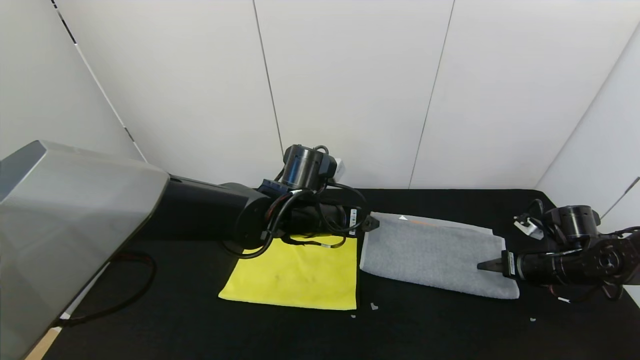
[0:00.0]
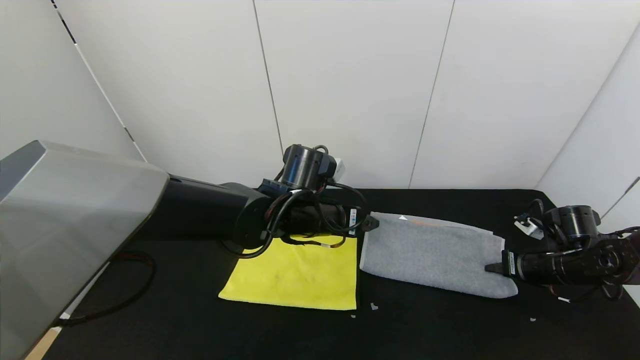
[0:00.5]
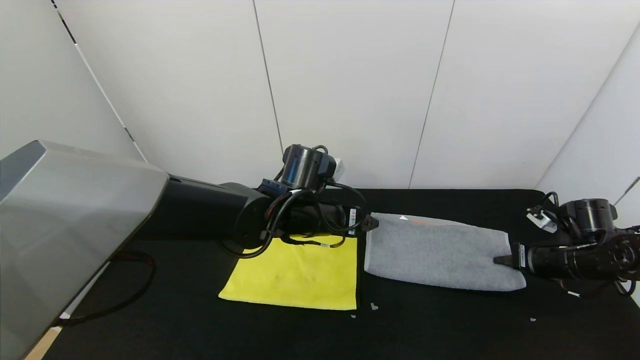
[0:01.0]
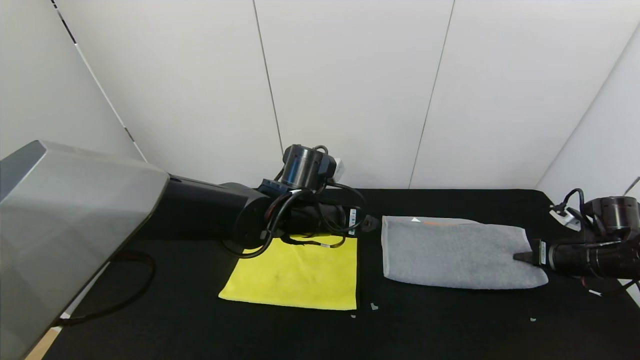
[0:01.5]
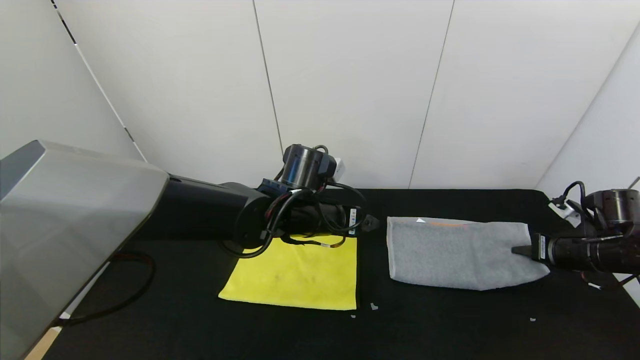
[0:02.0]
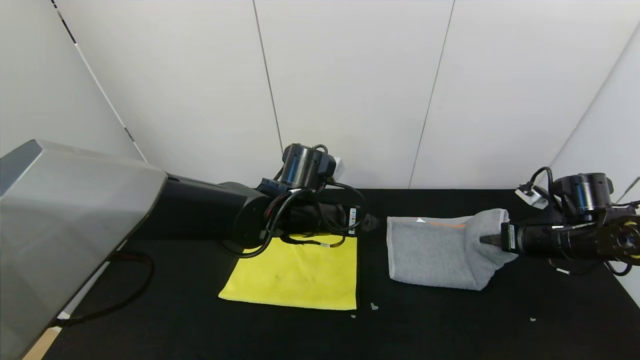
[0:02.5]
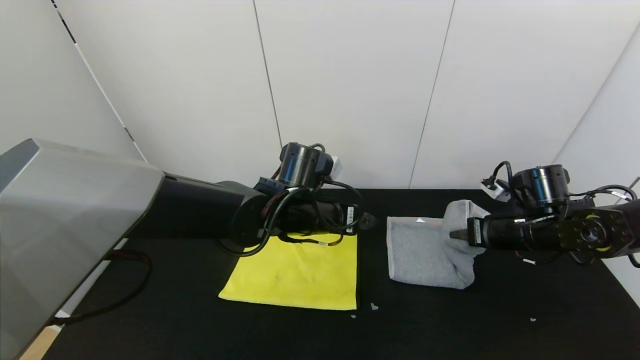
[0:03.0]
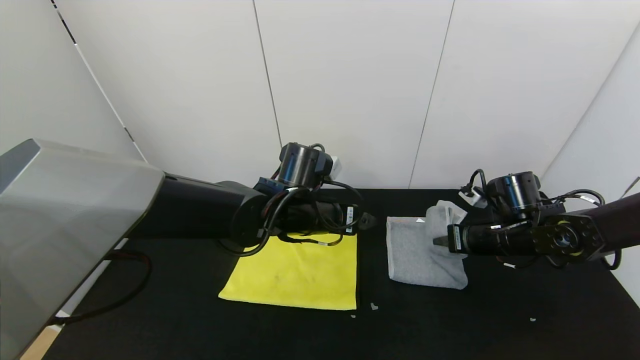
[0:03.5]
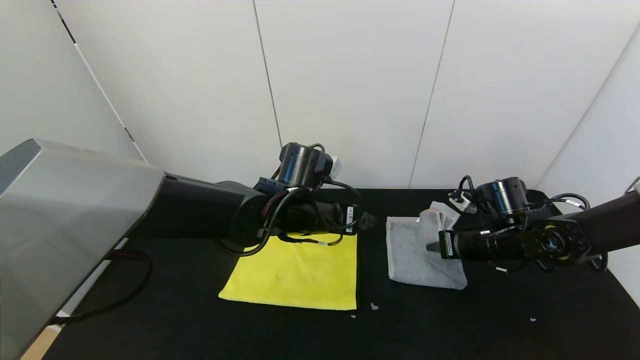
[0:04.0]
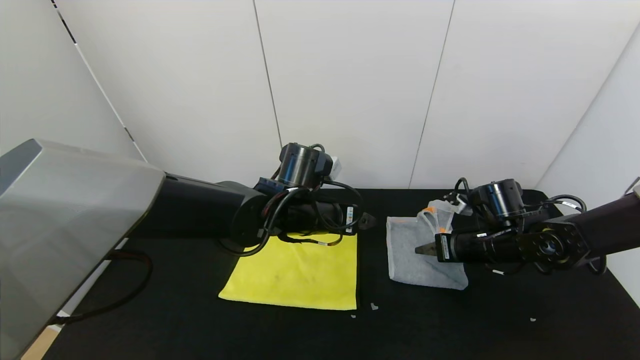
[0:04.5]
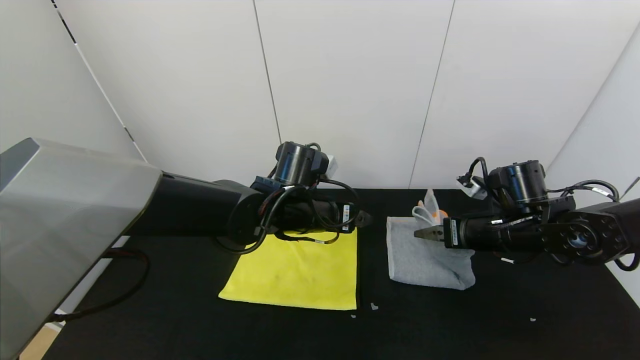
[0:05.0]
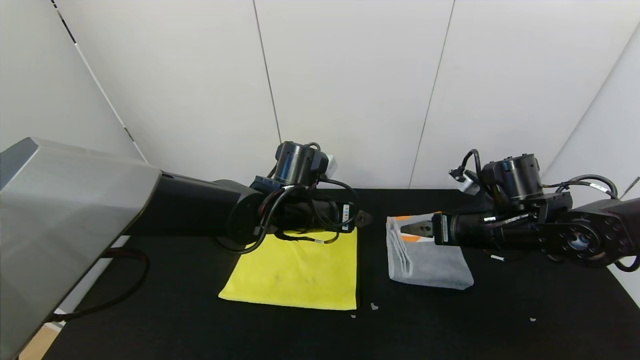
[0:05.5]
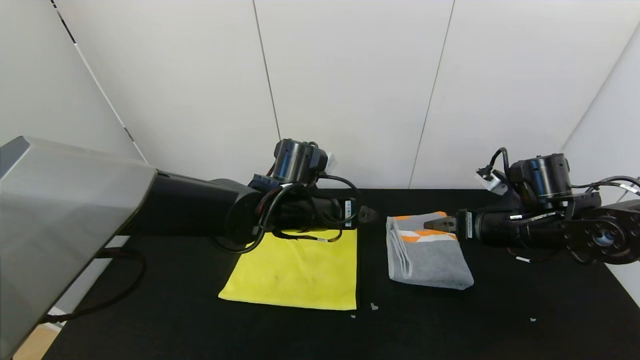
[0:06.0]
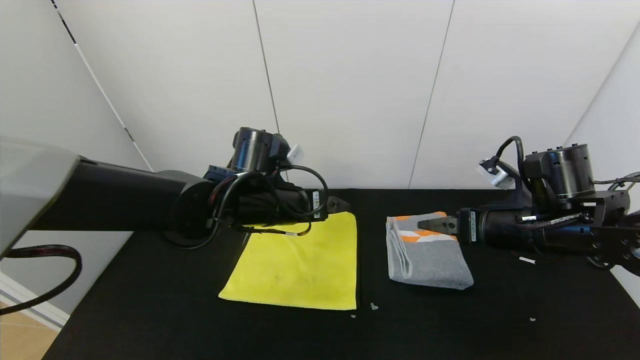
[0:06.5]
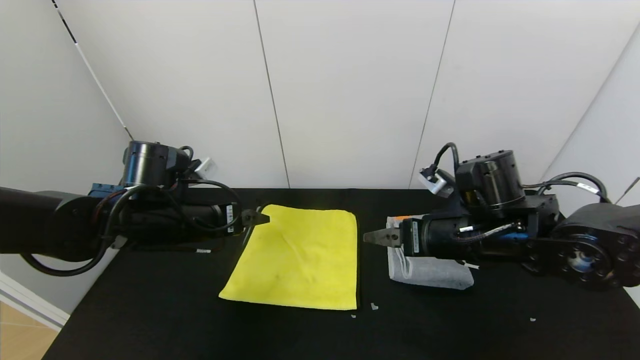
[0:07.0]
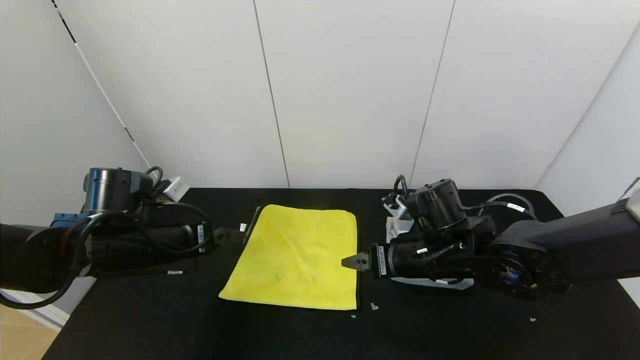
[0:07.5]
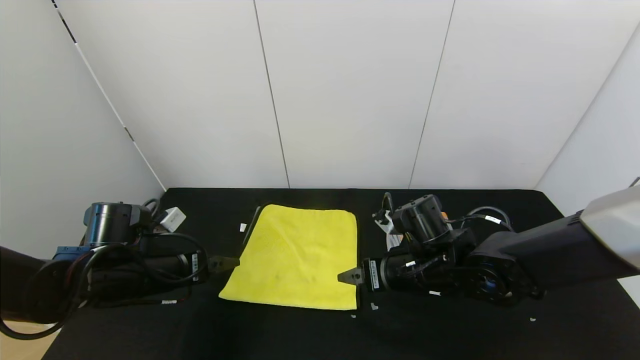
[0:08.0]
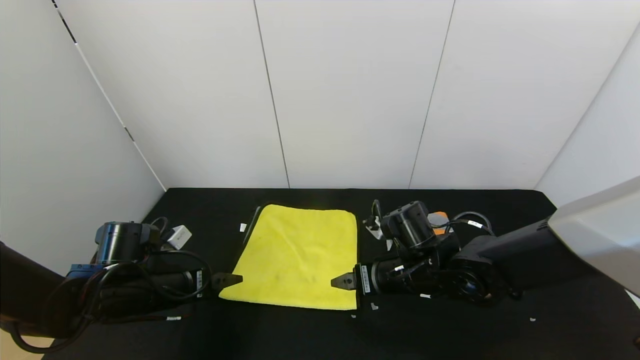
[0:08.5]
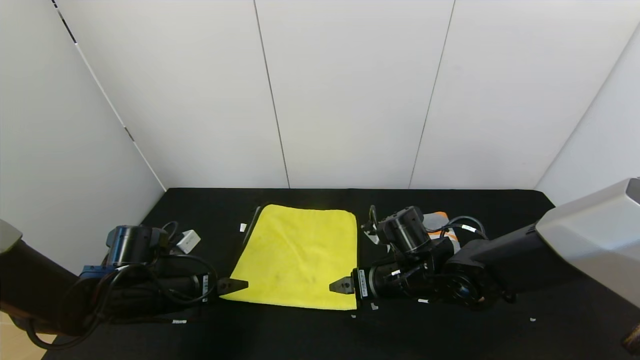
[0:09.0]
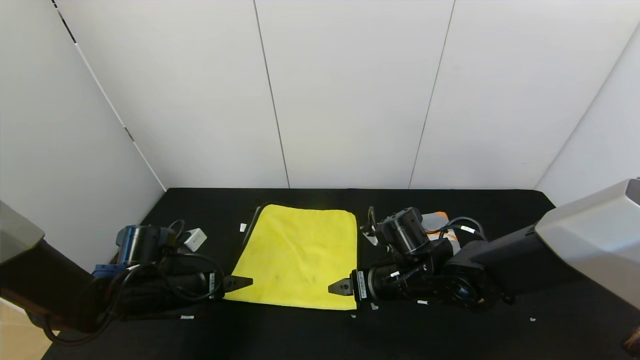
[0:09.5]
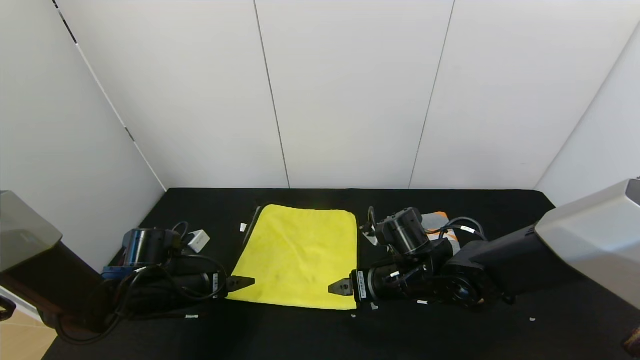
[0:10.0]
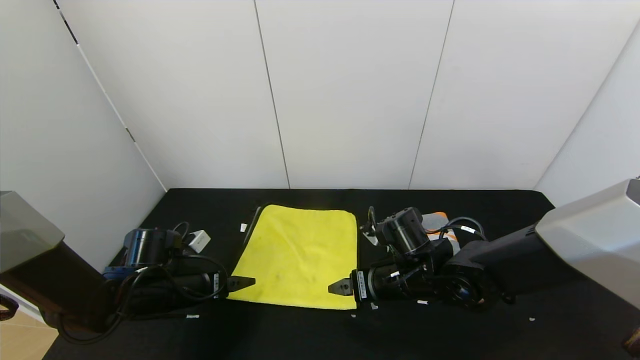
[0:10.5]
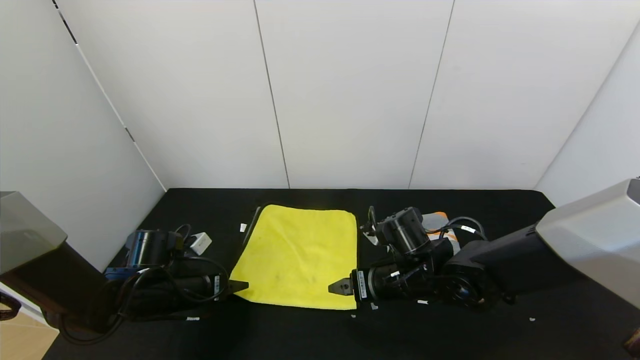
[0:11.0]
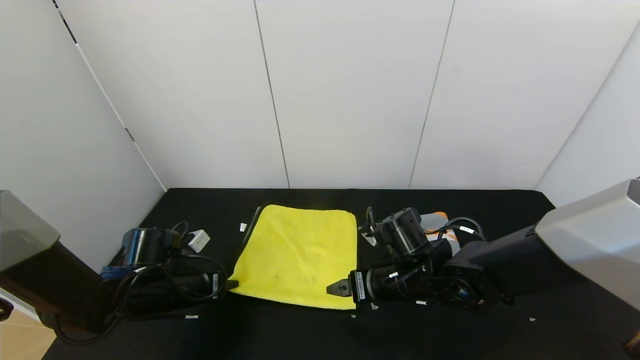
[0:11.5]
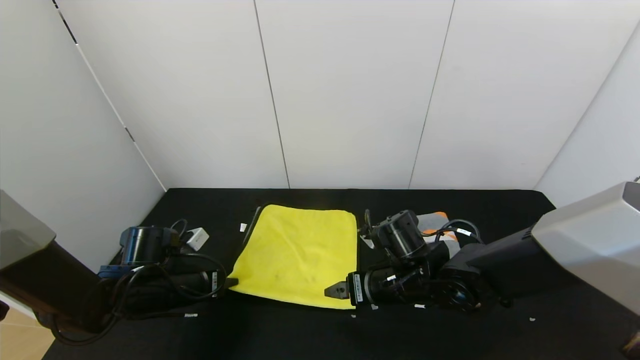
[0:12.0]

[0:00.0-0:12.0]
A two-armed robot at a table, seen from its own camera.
Task of the whole recording: Use the gripper to fold the yellow towel and grey towel in half twice,then put the yellow towel on the grey towel.
Step, 0:00.0 to 0:05.5: Fold the gray towel from right to left with right gripper.
0:00.0 to 0:02.0: The right gripper shifts by roughly 5 cm, and closes its fingers.
0:02.0 to 0:04.0: The right gripper shifts about 15 cm to the left.
0:04.0 to 0:06.0: The right gripper shifts roughly 5 cm upward, and opens its fingers.
0:06.0 to 0:08.0: The left gripper travels to the left by roughly 25 cm; the right gripper goes some 15 cm to the left.
0:08.0 to 0:10.0: The left gripper heads downward, covering roughly 5 cm.
0:10.0 to 0:12.0: The left gripper closes its fingers.

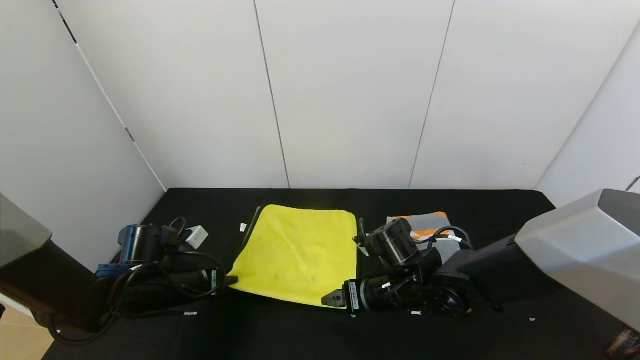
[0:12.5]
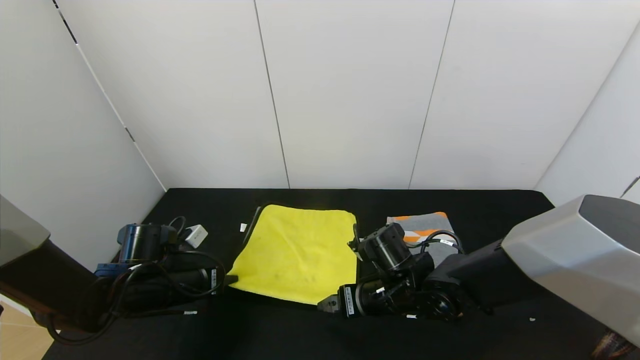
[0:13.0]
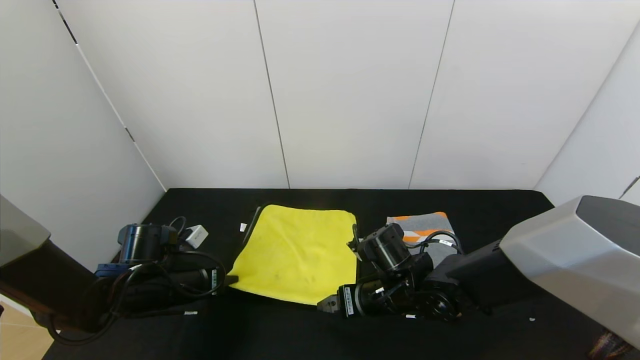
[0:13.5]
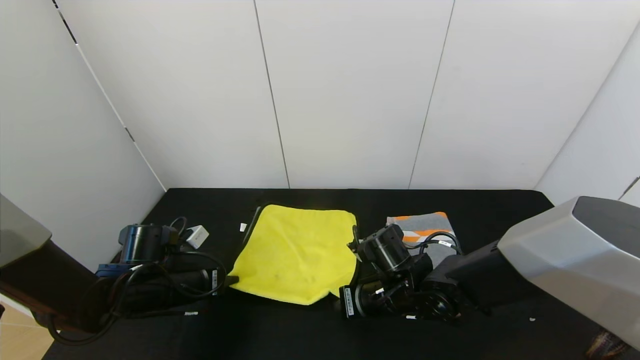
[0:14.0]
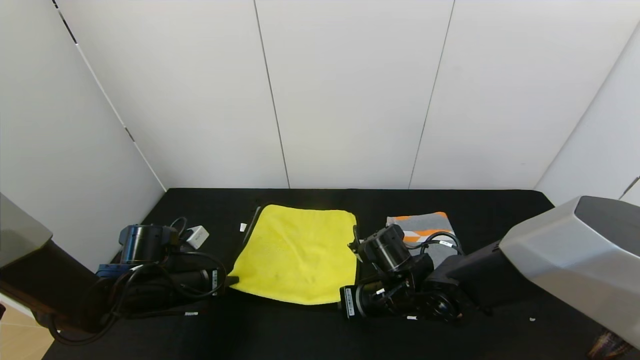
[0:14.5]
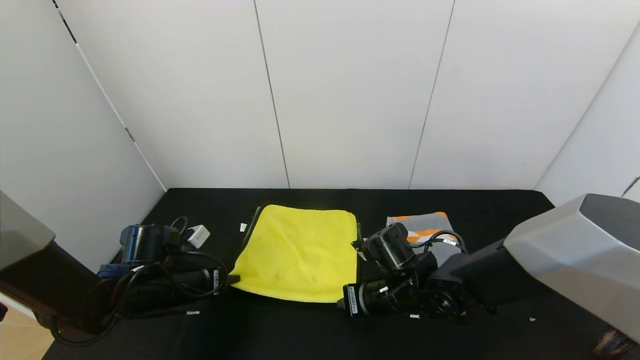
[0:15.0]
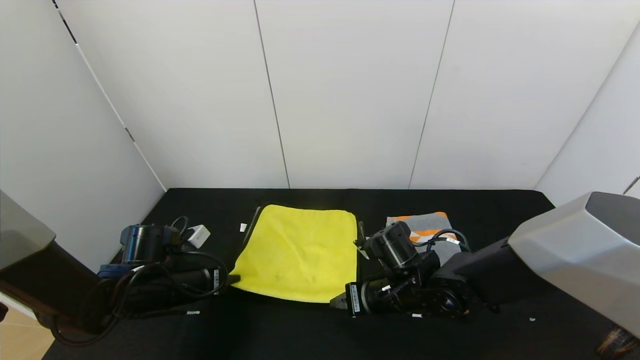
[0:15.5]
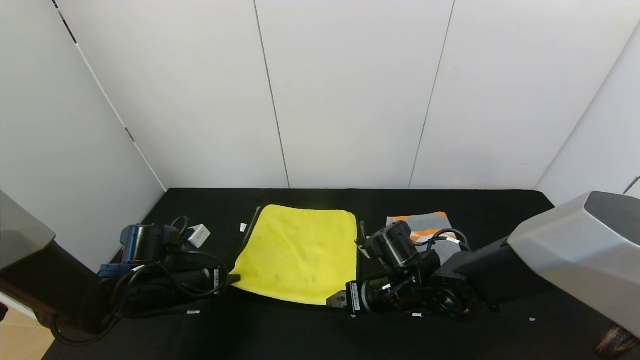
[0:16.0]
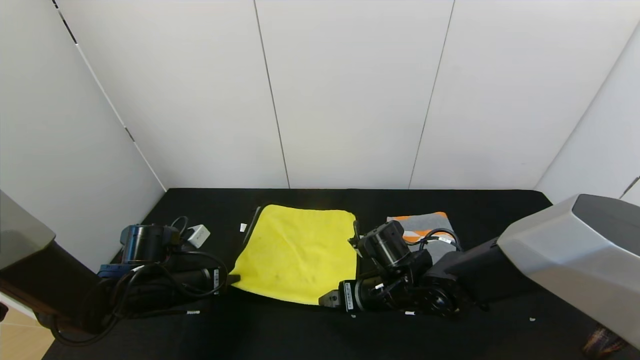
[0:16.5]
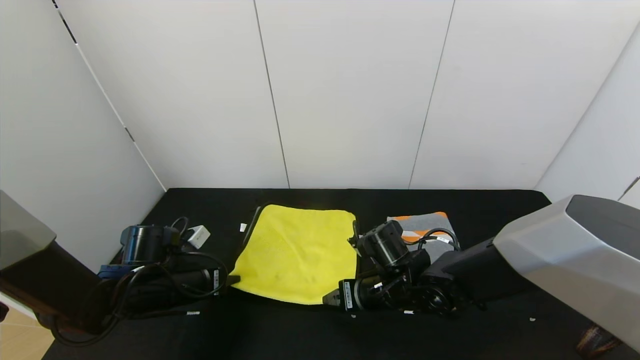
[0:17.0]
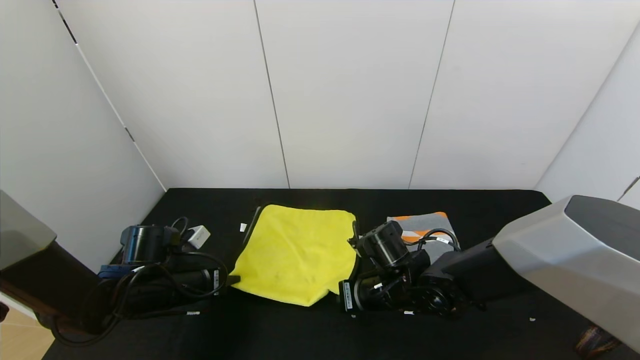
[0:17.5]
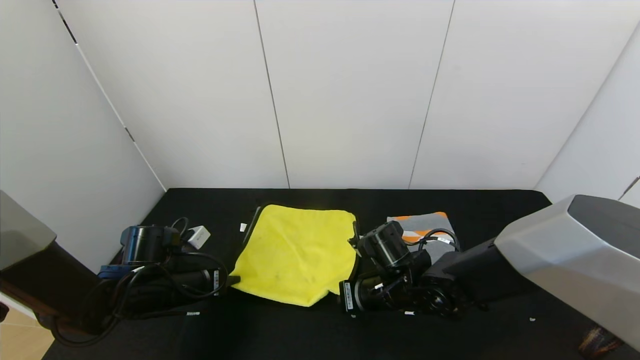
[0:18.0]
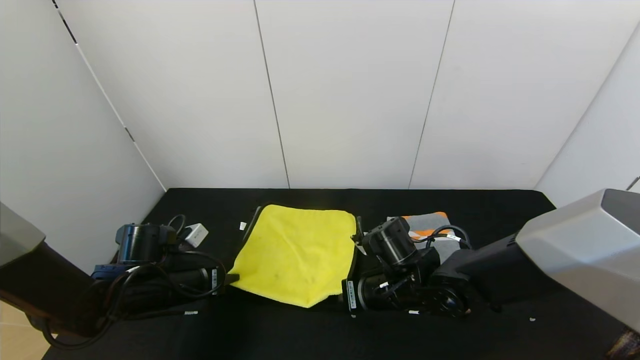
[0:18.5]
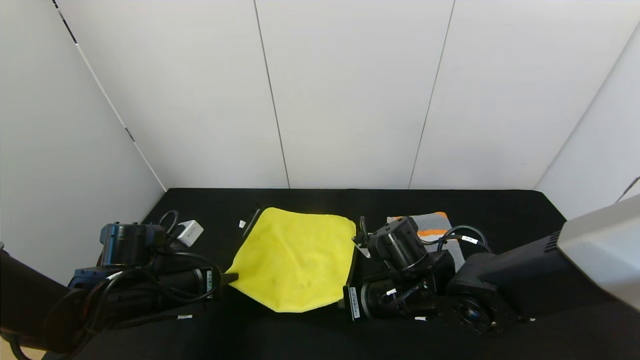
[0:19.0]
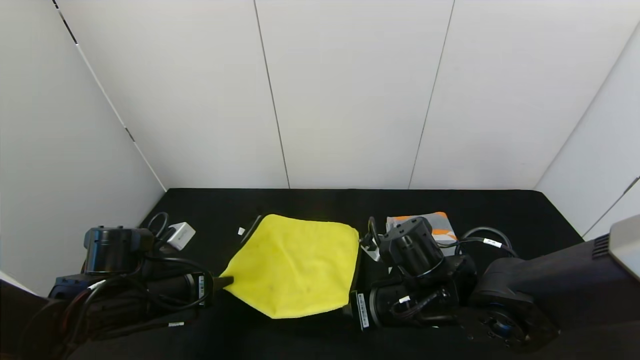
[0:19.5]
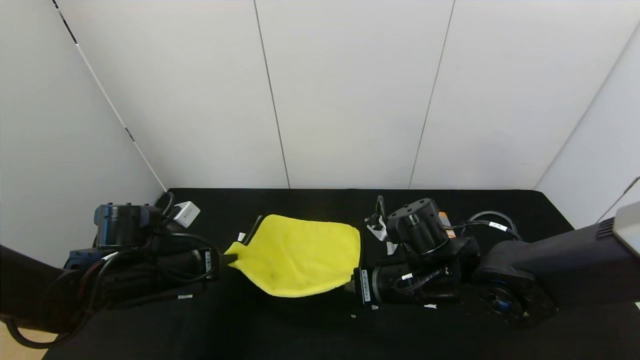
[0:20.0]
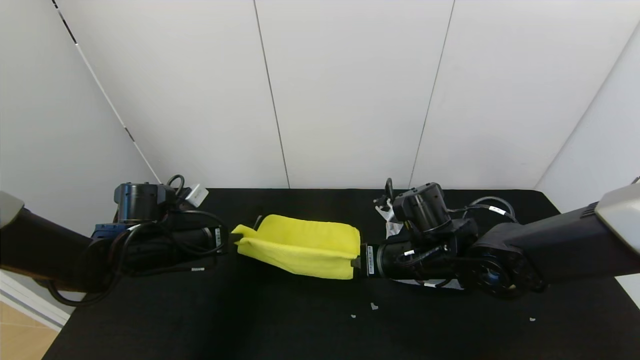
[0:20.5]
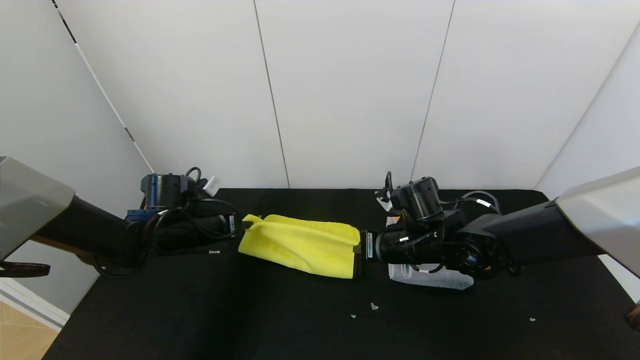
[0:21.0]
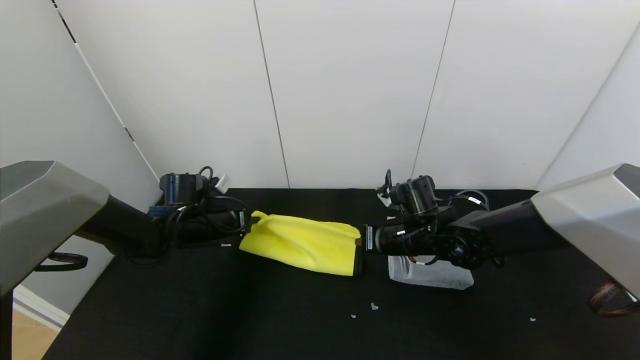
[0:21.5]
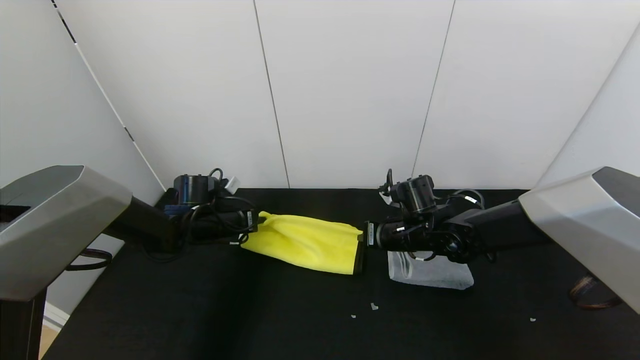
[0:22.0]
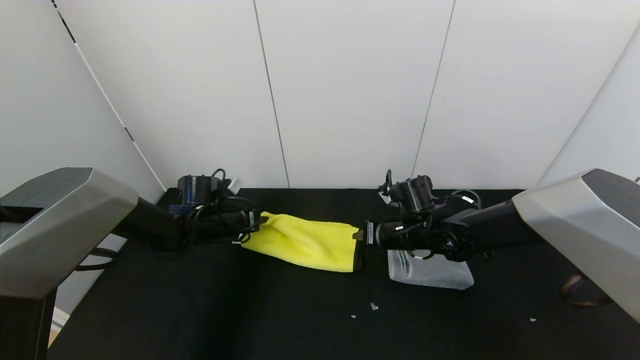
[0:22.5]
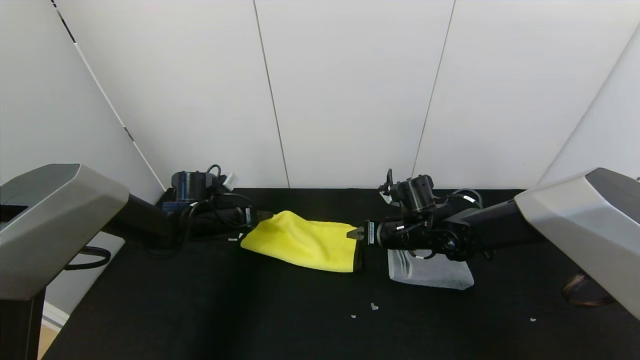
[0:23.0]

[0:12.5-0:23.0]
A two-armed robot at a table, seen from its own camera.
Task of the whole recording: Use the gripper to fold the yellow towel and grey towel in half twice,then put the yellow towel on the grey towel.
0:12.5 to 0:14.5: The right gripper closes up.
0:14.5 to 0:16.5: The right gripper opens.
0:16.5 to 0:19.0: The right gripper closes.
0:19.0 to 0:21.0: The left gripper is displaced forward by roughly 10 cm. The right gripper is displaced forward by some 5 cm.
0:21.0 to 0:23.0: Both grippers travel together forward, approximately 5 cm. The left gripper opens its fingers; the right gripper opens up.
